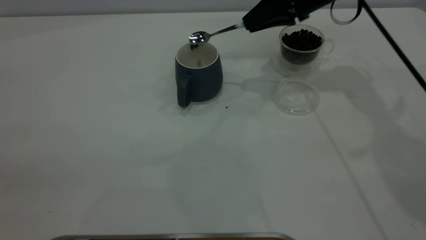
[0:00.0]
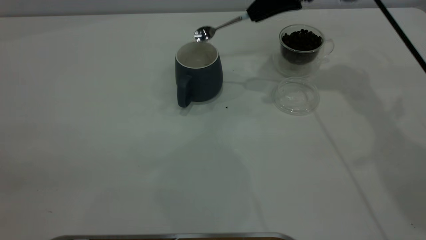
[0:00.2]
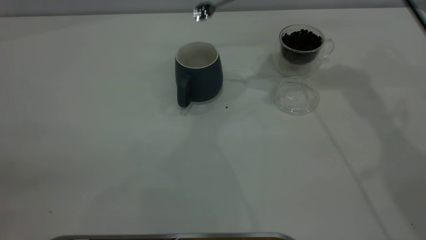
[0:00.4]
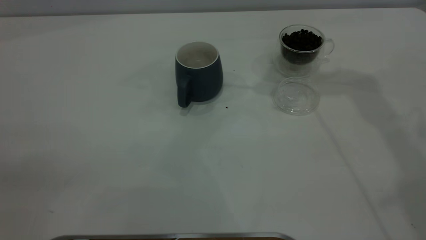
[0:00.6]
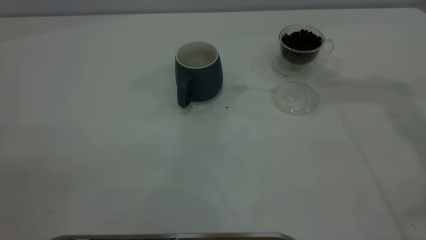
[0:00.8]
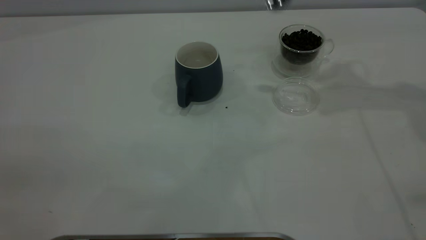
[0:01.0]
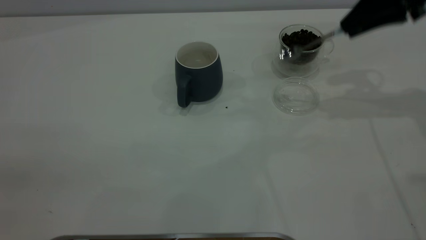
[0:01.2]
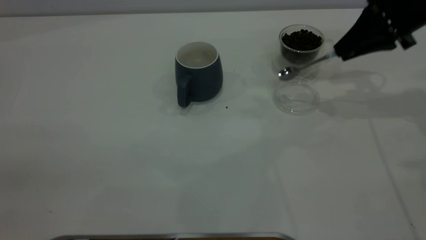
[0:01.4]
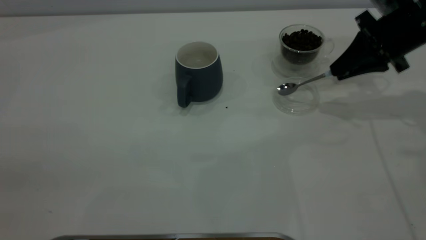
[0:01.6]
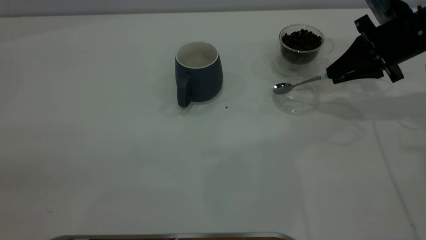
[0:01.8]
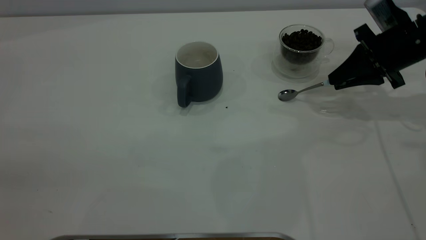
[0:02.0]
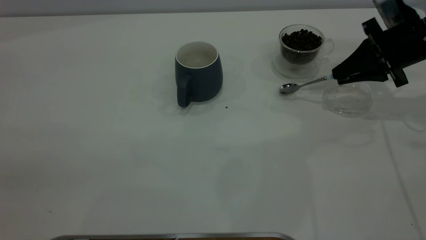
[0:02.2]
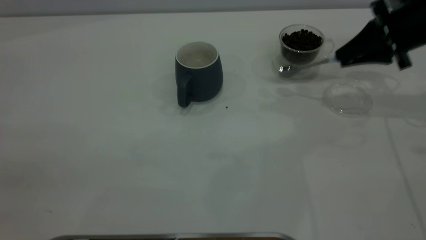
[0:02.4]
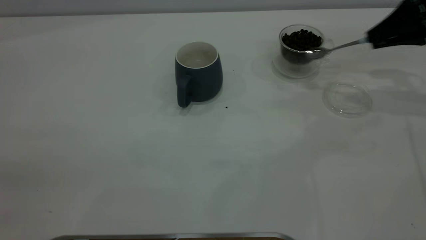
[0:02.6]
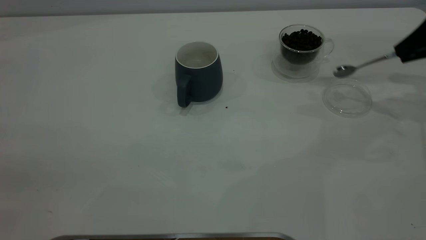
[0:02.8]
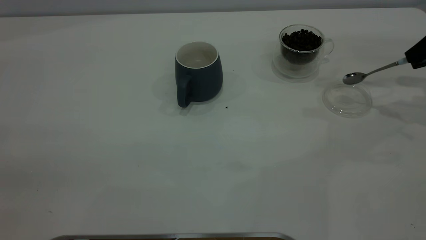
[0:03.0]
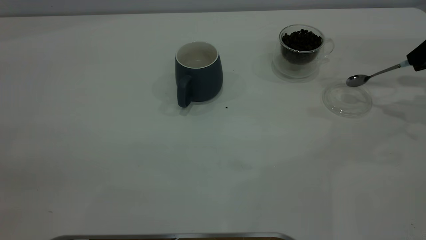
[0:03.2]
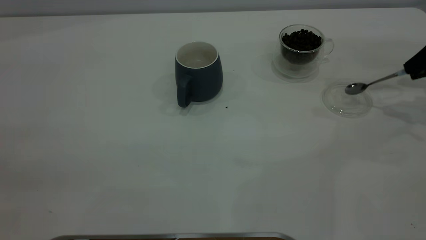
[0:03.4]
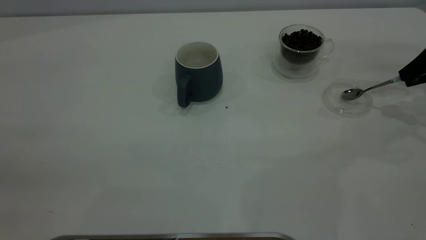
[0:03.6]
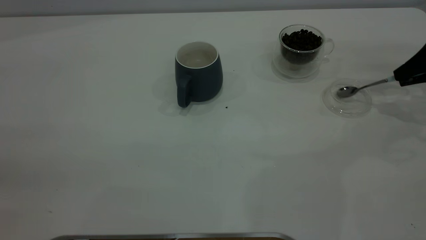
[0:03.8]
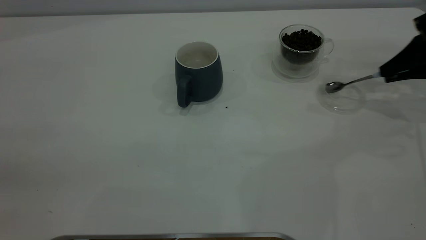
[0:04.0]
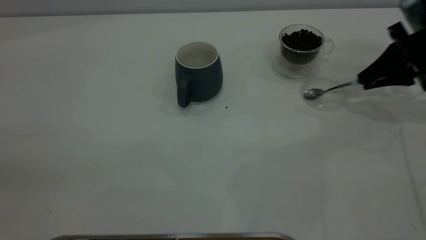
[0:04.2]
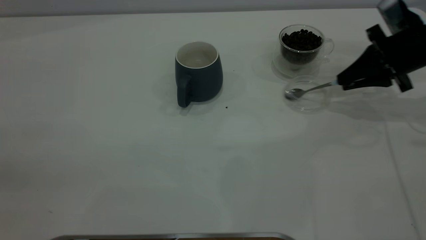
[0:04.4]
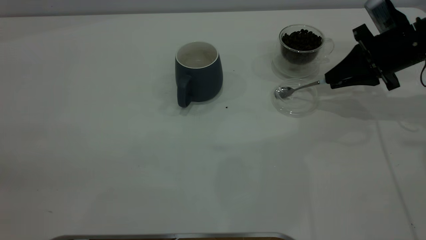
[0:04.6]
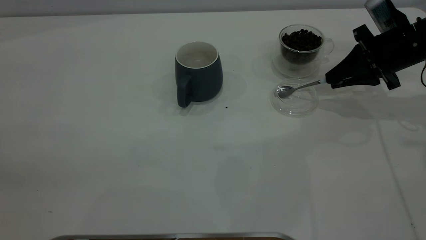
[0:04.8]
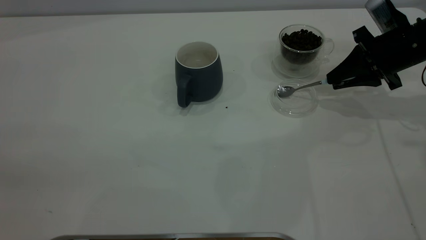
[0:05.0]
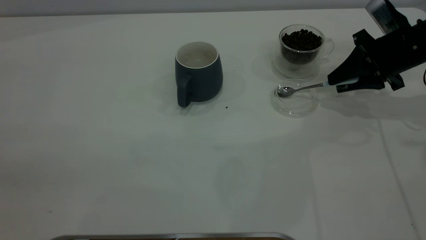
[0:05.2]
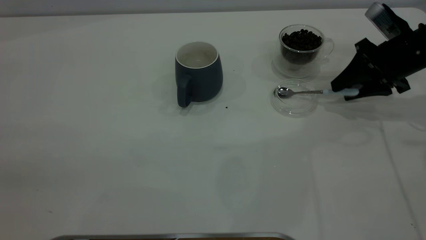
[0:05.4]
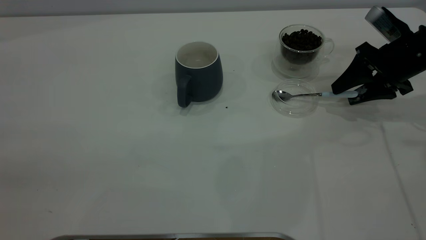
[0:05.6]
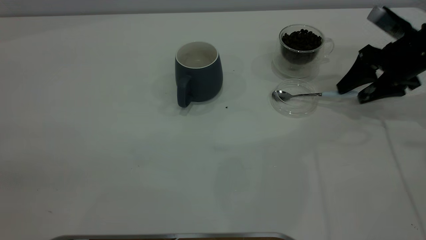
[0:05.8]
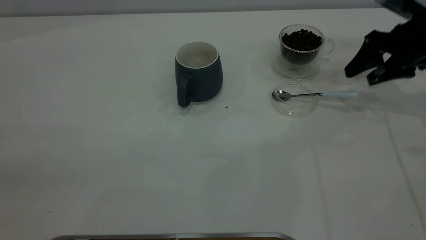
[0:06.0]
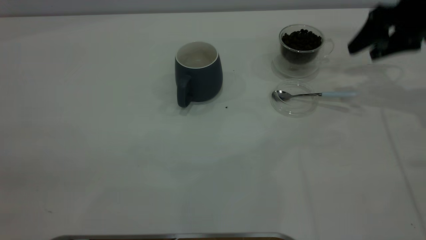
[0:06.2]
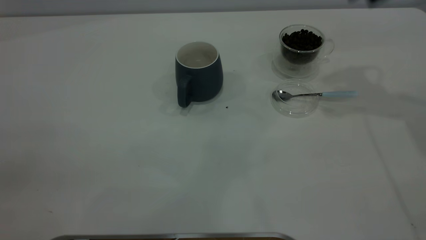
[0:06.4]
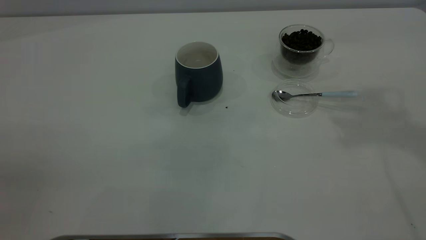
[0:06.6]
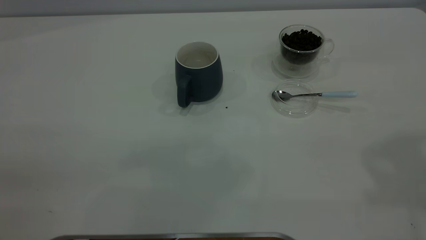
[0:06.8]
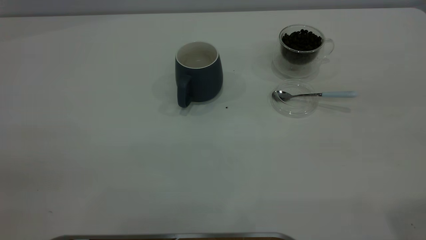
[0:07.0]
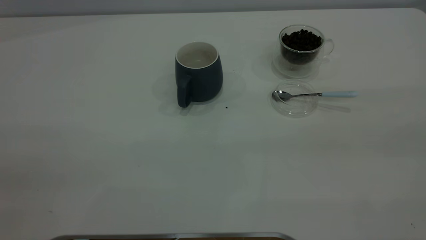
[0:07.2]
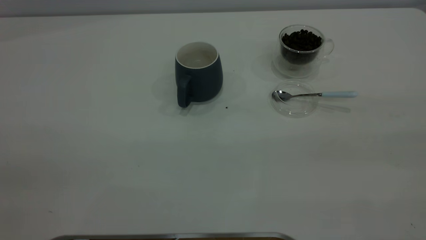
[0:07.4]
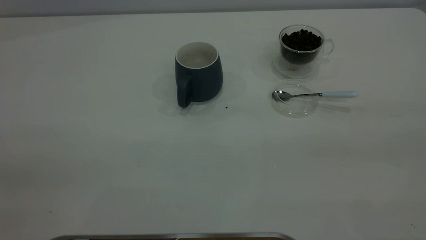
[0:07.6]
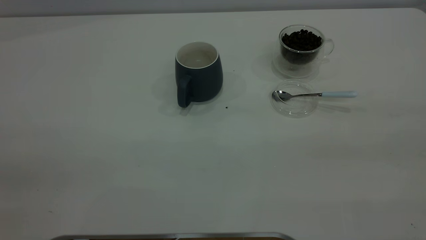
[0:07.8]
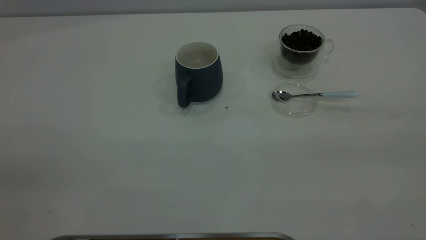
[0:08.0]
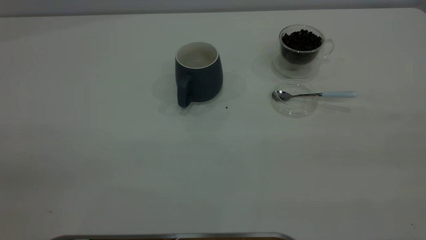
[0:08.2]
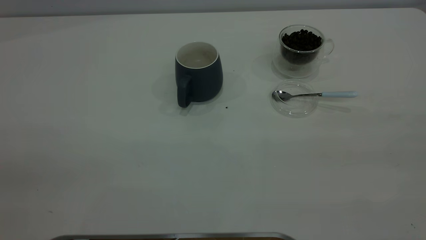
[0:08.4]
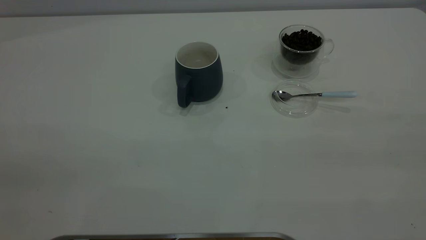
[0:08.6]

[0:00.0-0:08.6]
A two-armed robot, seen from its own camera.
Task of the whole recording: the left gripper place the grey cup in the center of the table, the right gripper take the blue spoon from the cup lid and scoop out the coffee beans from the coffee cup and put them into the grey cup, the right gripper put the spoon back into the cup lid.
Step, 0:00.4 to 0:06.0: Place the spoon back in its original place.
0:00.0 to 0:01.4: The right gripper is displaced to the right and backward by roughly 15 cm, and travels upward and back again, approximately 15 cm each way.
0:01.4 to 0:02.8: The right gripper travels to the right by about 10 cm.
0:02.8 to 0:04.4: The right gripper travels to the left and downward by approximately 10 cm.
0:04.4 to 0:05.8: The right gripper opens.
0:05.8 to 0:07.2: The right gripper travels backward and upward by roughly 40 cm.
